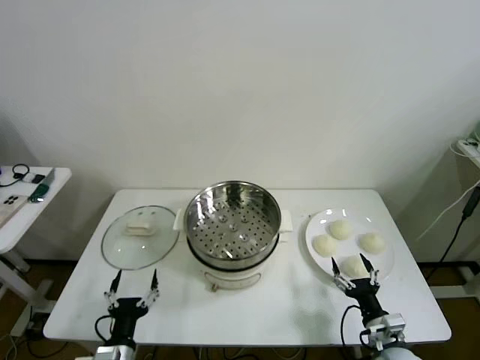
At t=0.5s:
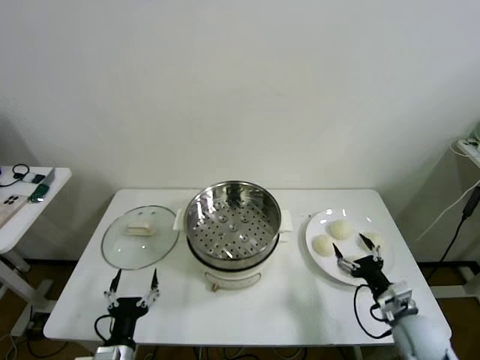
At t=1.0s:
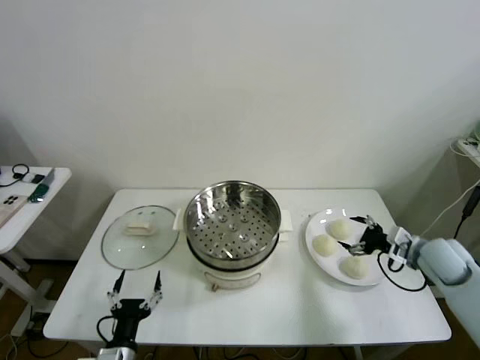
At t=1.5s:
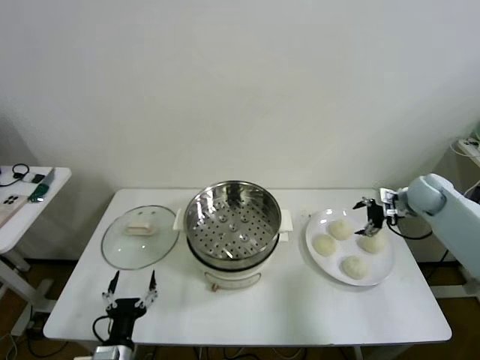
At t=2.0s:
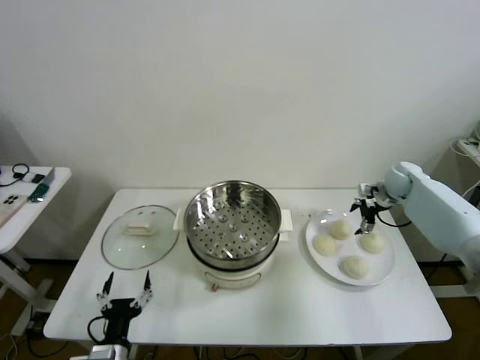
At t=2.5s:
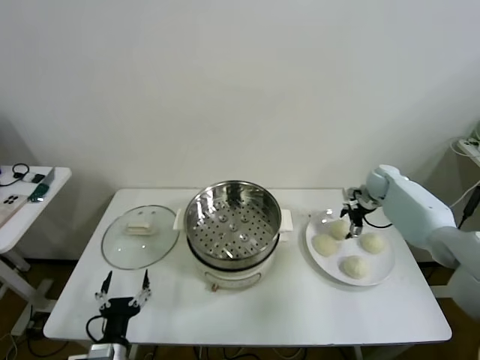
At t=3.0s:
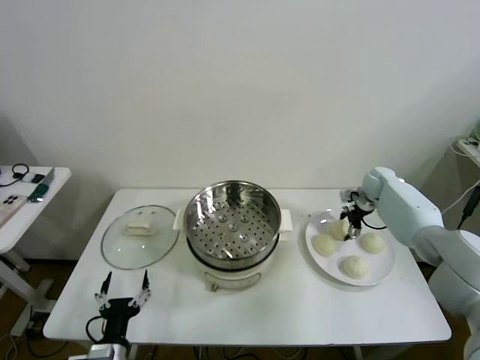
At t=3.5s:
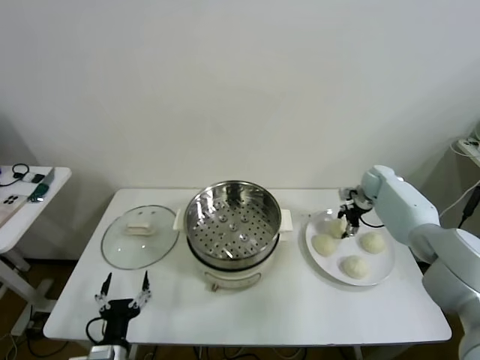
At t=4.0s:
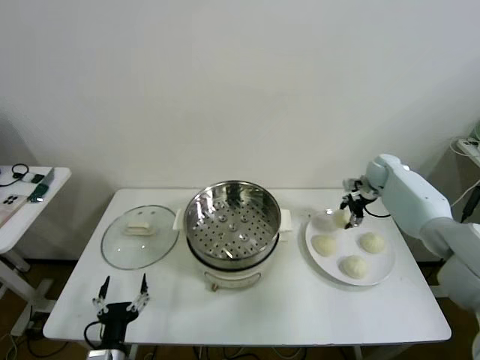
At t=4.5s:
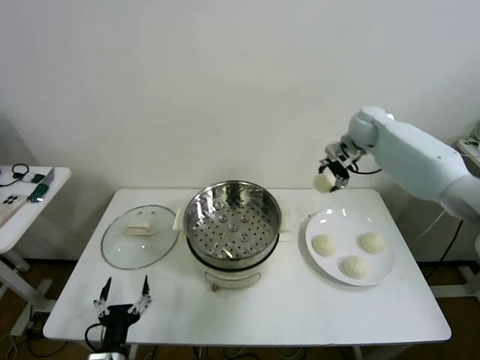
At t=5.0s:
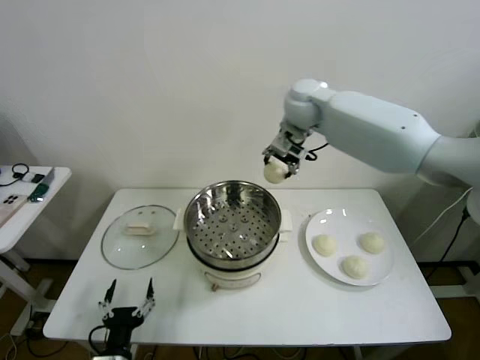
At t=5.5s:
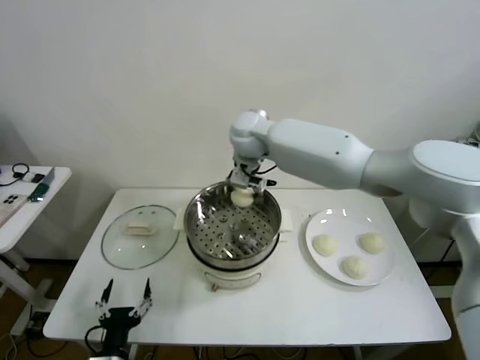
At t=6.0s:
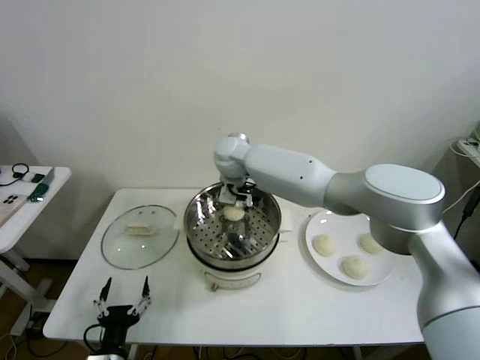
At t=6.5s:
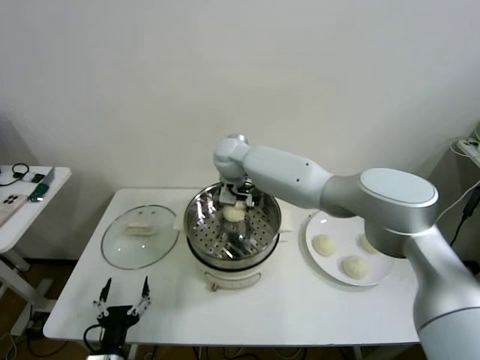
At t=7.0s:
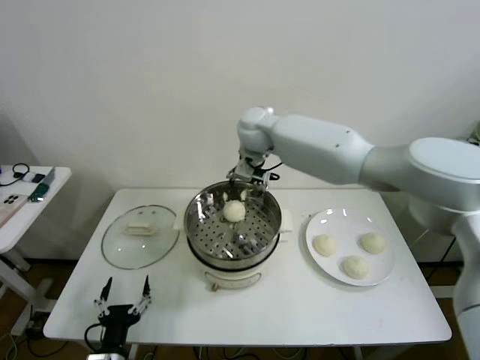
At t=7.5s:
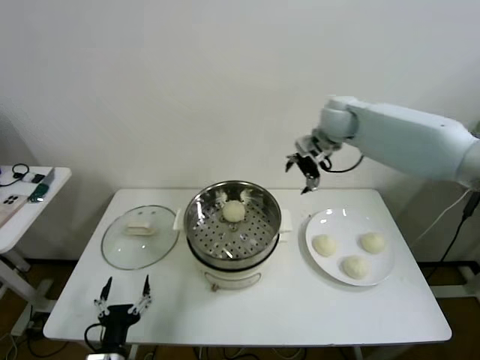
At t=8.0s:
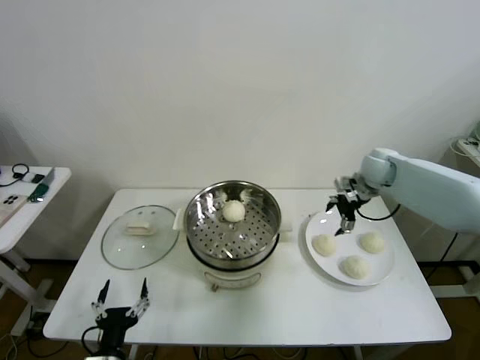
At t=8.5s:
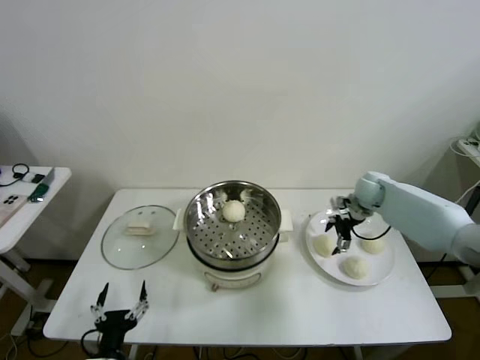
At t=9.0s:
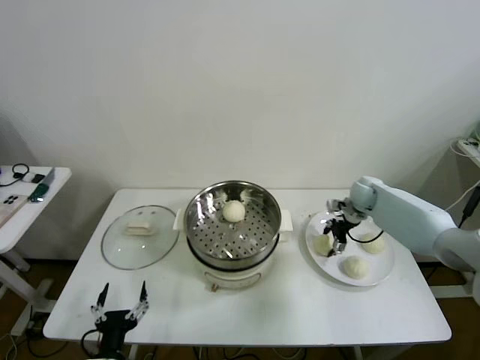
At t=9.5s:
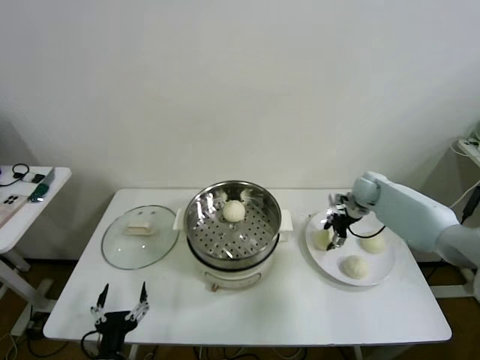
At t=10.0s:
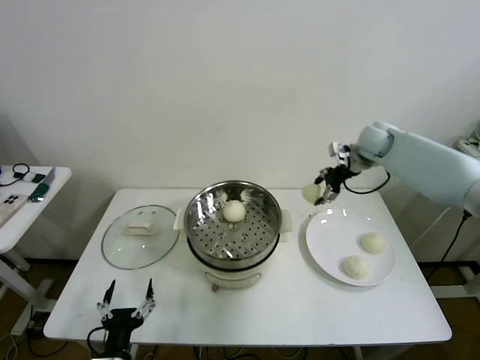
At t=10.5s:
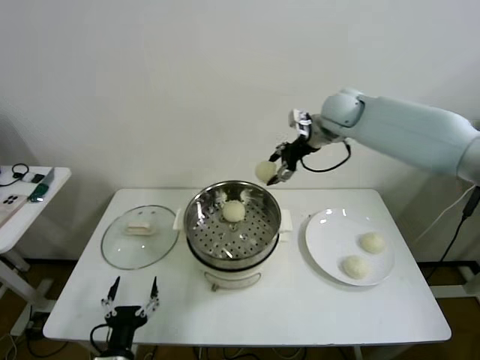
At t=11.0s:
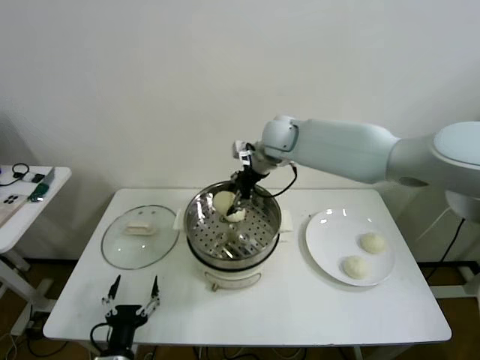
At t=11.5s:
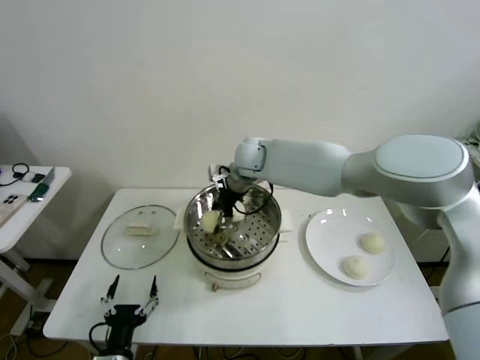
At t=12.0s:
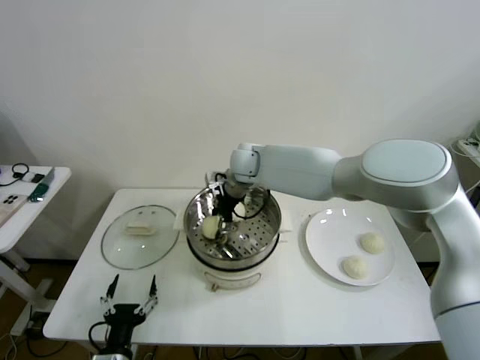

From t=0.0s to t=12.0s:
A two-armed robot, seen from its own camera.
Task of the whole recording: take steamed baozi put them in steamer then cover it.
Step, from t=0.0s to t=3.0s: Grasp the baozi in the plate with right gripper.
Step, from t=3.5s to t=6.5s: Place the baozi on the steamer with right gripper.
Step, from t=7.0s to t=9.0s: Grasp the baozi in the plate with right gripper.
From t=2.0s to t=4.0s: The right gripper ends up about 5 cm from where it was, and closes.
From t=4.0s to t=6.0s: The right gripper shifts some 40 cm to the left.
From t=6.0s to t=8.0s: The right gripper goes approximately 40 cm to the right, and opens up.
From t=8.0s to t=10.0s: The right gripper heads upward, covering about 10 cm, and closes its fingers.
From t=10.0s to t=12.0s: The right gripper moves to the left, approximately 30 cm.

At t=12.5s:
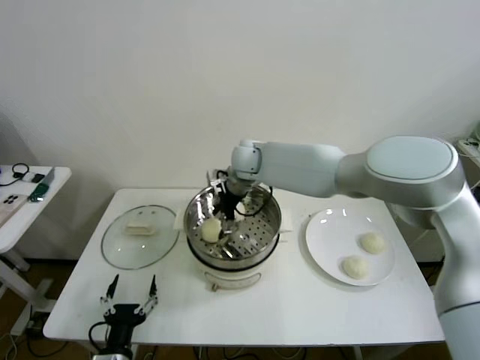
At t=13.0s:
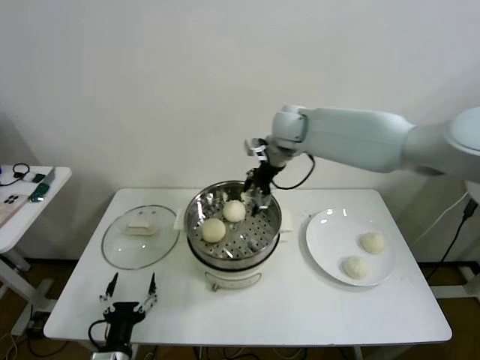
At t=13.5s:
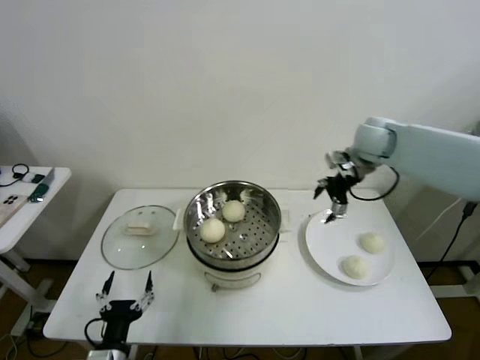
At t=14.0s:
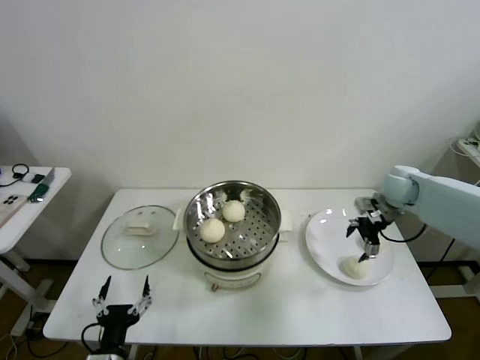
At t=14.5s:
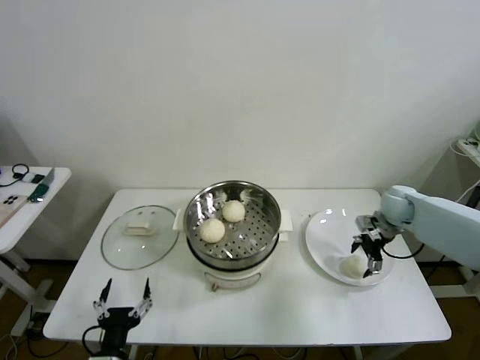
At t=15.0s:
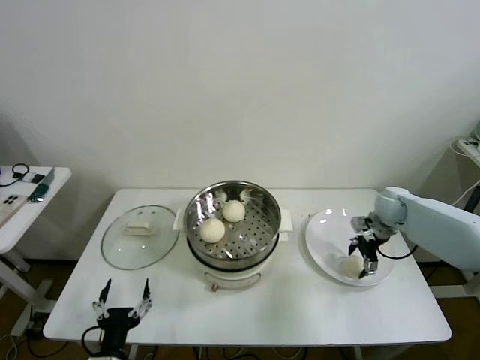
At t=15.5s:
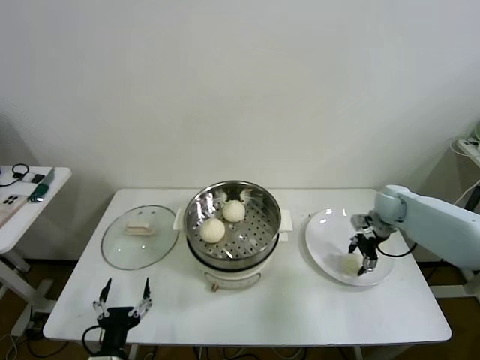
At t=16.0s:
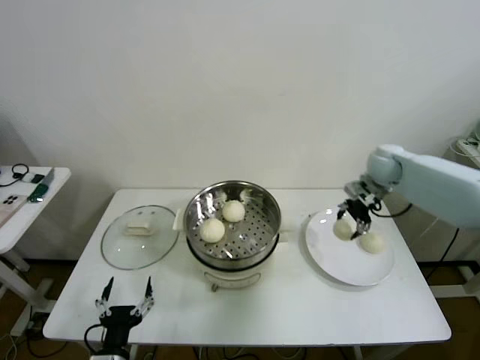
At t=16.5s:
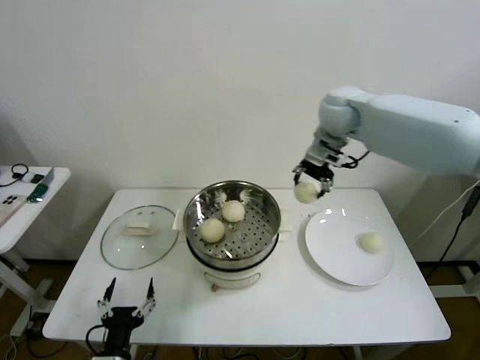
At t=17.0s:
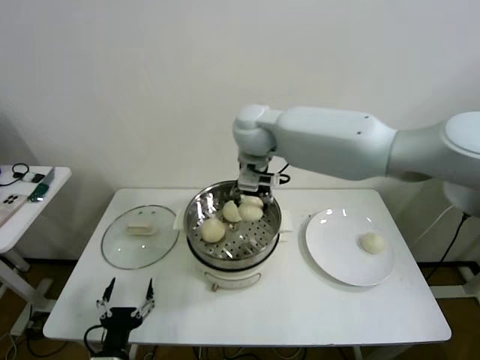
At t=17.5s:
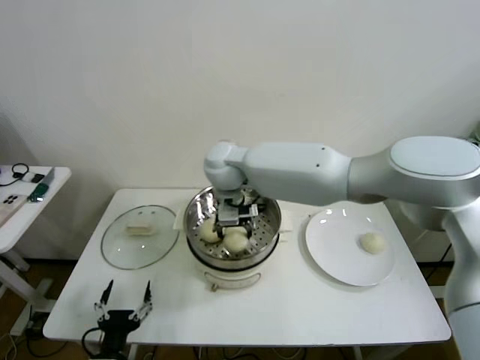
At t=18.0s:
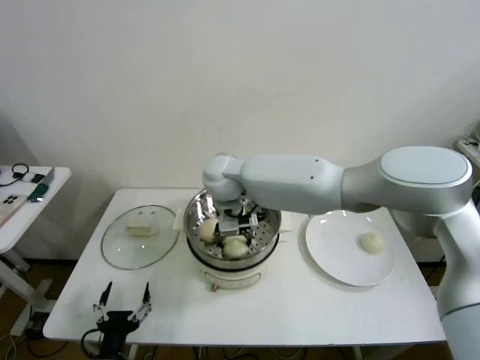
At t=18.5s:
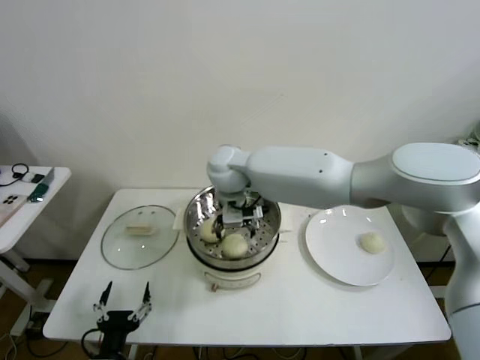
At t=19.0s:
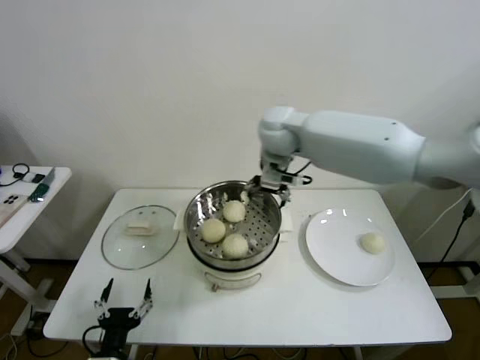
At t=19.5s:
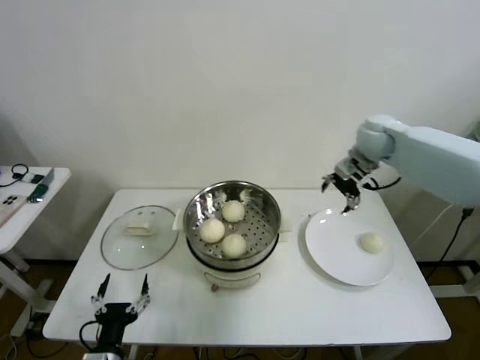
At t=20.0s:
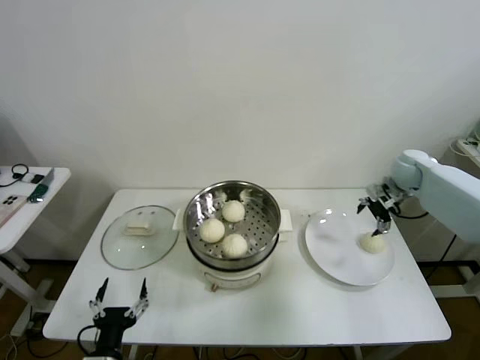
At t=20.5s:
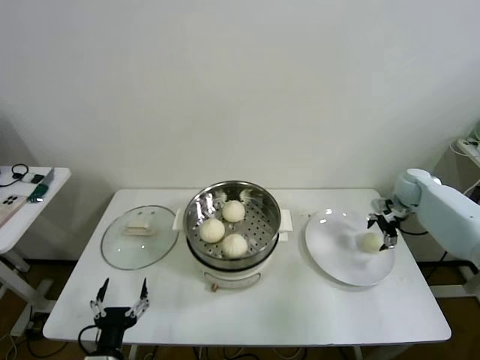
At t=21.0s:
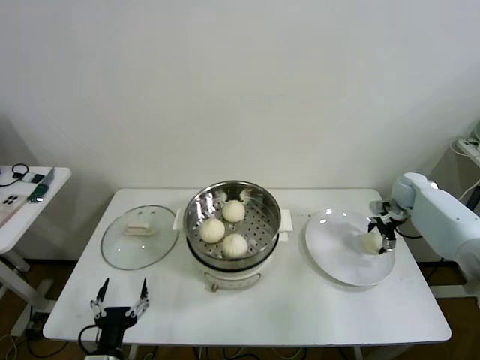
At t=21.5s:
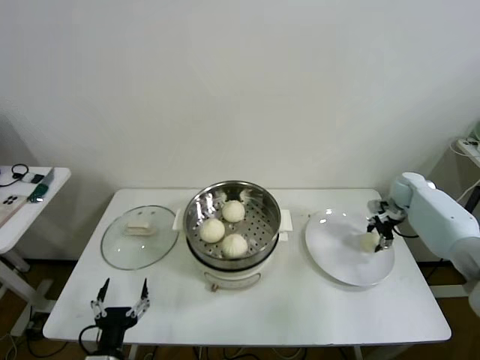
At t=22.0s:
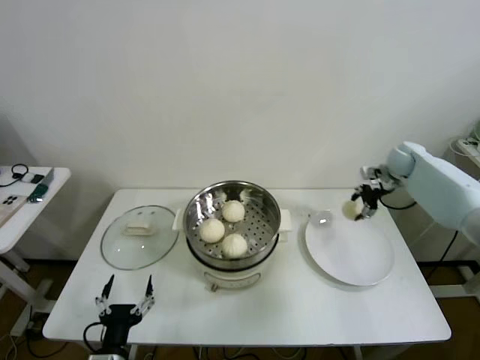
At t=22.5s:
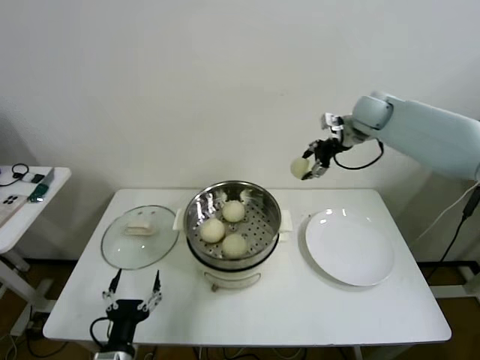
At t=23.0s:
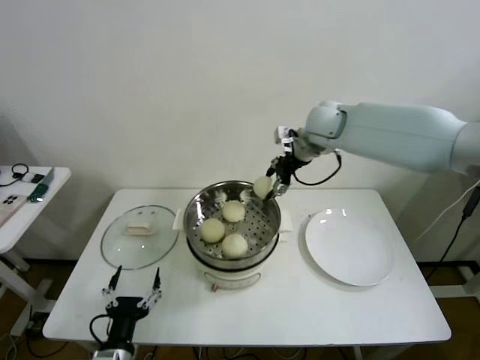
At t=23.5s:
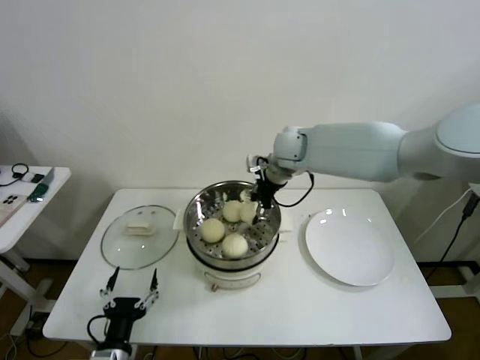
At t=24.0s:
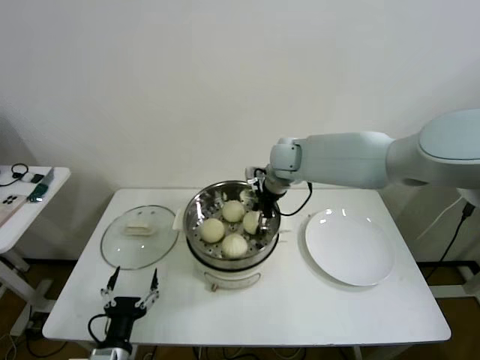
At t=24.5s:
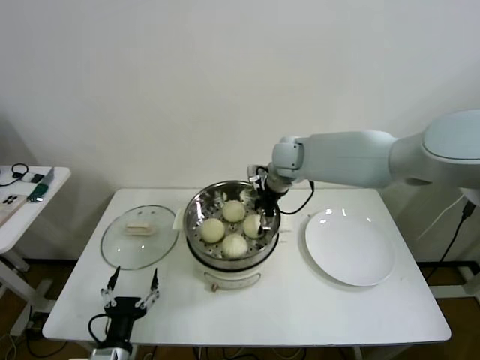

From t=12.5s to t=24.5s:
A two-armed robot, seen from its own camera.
Task of the whole recording: take steamed baozi put them in steamer then cover it.
Step, from t=13.0s to t=15.0s: Grasp the baozi in the plate with right gripper.
Step, from t=15.5s to t=18.0s: Place the baozi on the steamer with right gripper.
Step, from t=18.5s to t=21.0s: Grasp the baozi in the plate with right gripper.
Step, from t=21.5s to t=24.0s: Place the baozi on the steamer with right gripper.
From t=12.5s to t=14.5s: The right gripper travels to the right by about 40 cm.
From t=14.5s to t=16.5s: The right gripper is displaced upward and to the left by roughly 35 cm, and closes up.
From t=16.5s to t=18.5s: The right gripper goes approximately 20 cm to the left and downward, and opens.
From t=18.5s to t=20.5s: The right gripper moves to the right, some 50 cm.
From t=20.5s to t=22.5s: The right gripper is displaced upward and to the left by approximately 30 cm, and closes up.
From t=22.5s to t=24.5s: The right gripper shifts some 20 cm to the left and downward, and opens up.

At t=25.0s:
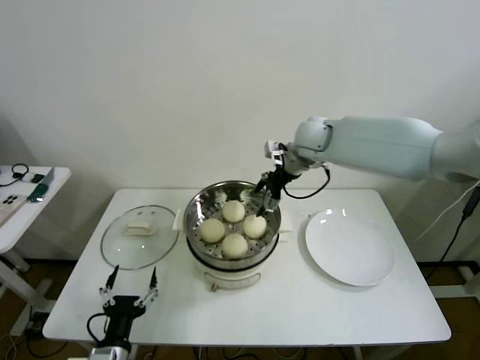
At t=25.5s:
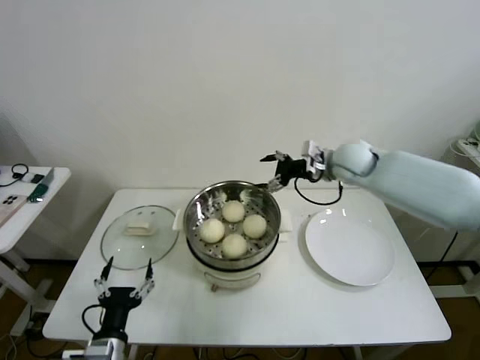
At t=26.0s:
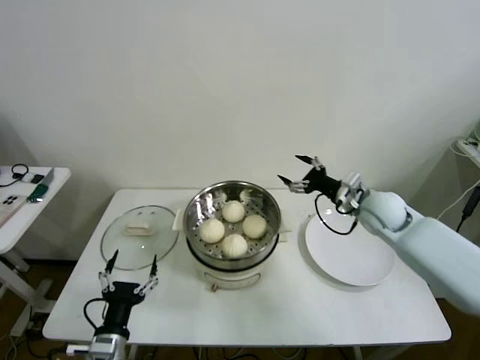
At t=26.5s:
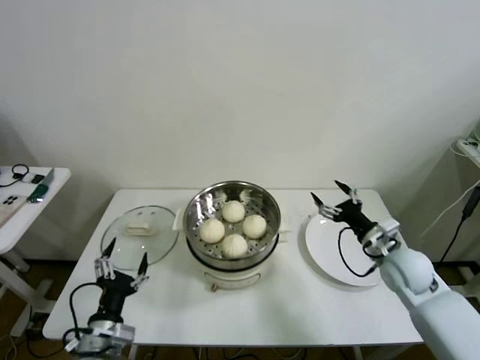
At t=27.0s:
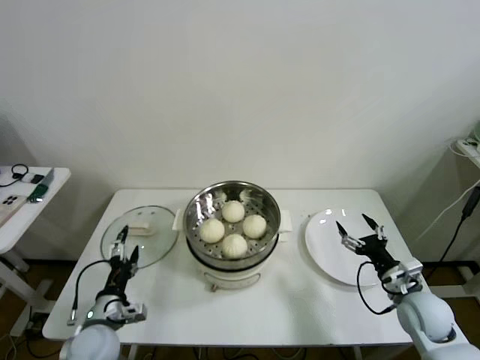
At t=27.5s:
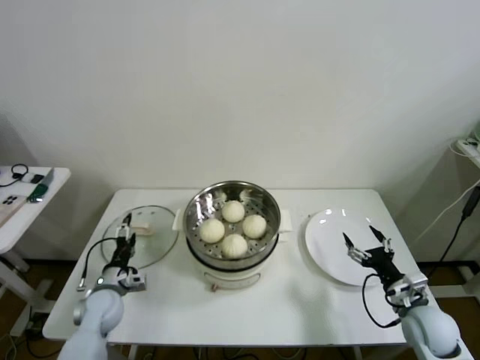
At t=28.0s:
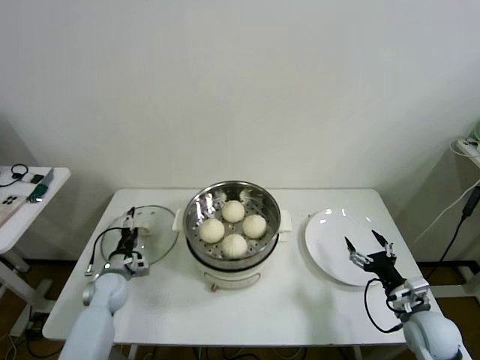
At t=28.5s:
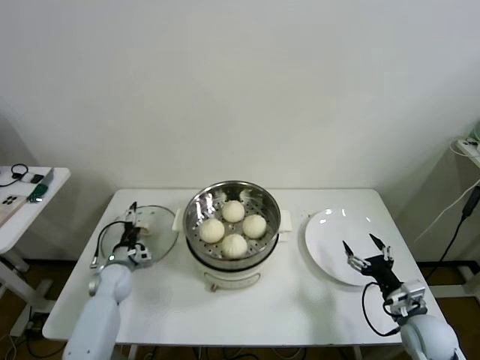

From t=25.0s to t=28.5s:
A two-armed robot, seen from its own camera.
Task of the whole recording: take steamed baozi put them in steamer then cover it.
From t=25.0s to t=27.0s: The left gripper shifts some 10 cm forward, while the right gripper goes about 40 cm backward, downward and to the right.
From t=27.0s to t=28.5s: The left gripper is displaced forward and downward by some 20 cm. Meanwhile the right gripper ends up approximately 5 cm from where it was.
